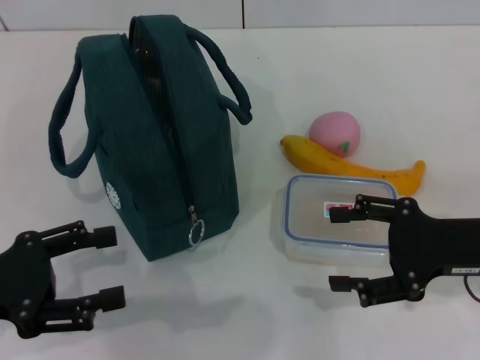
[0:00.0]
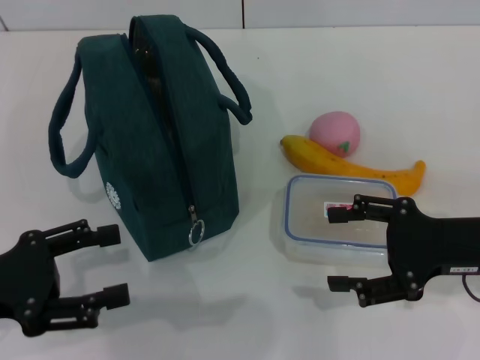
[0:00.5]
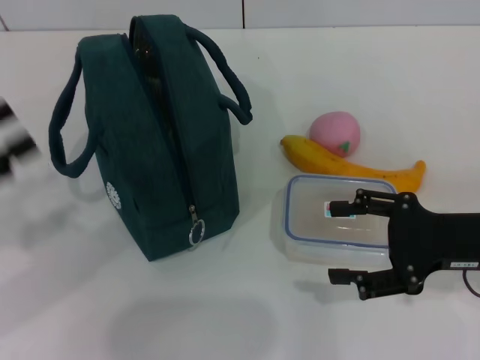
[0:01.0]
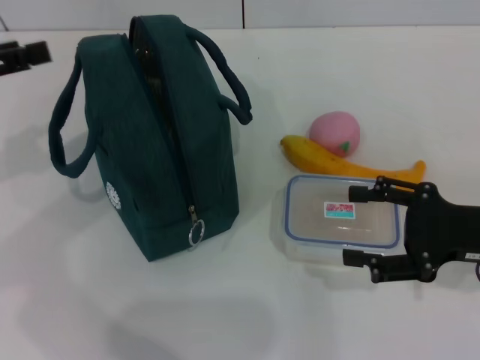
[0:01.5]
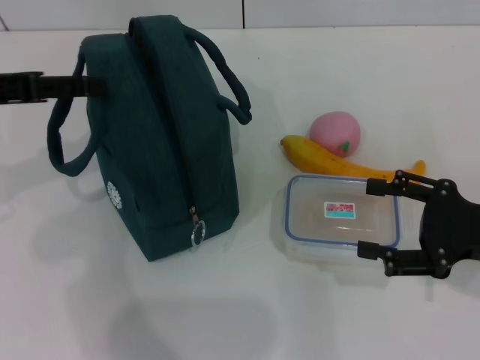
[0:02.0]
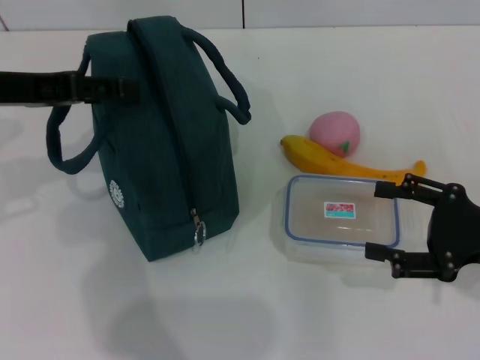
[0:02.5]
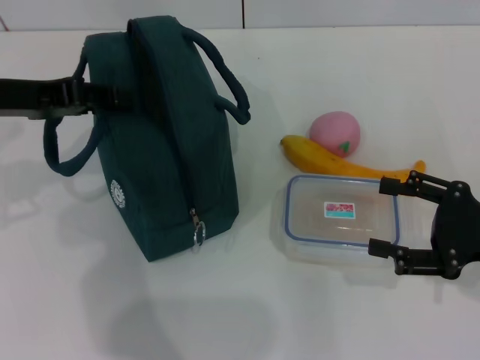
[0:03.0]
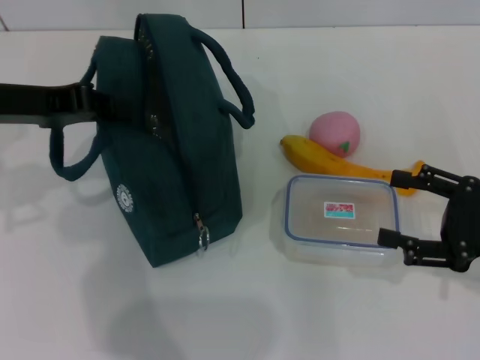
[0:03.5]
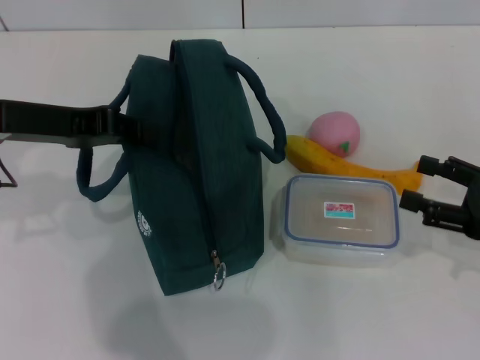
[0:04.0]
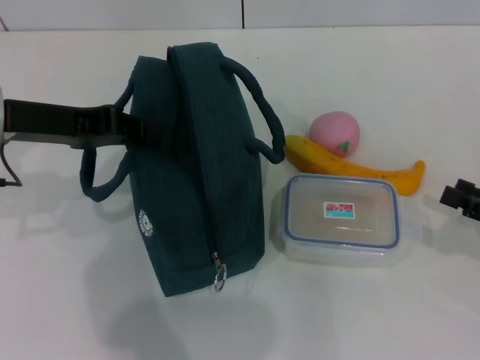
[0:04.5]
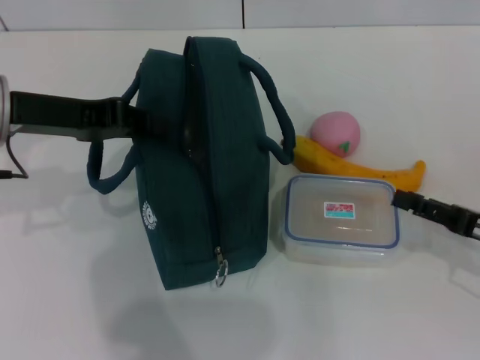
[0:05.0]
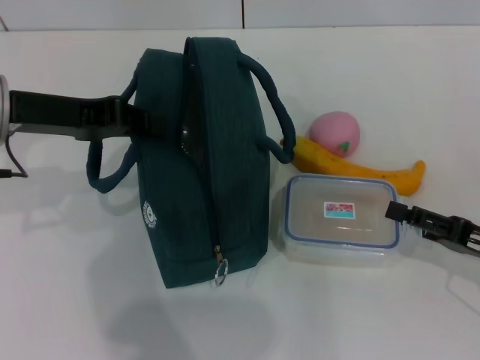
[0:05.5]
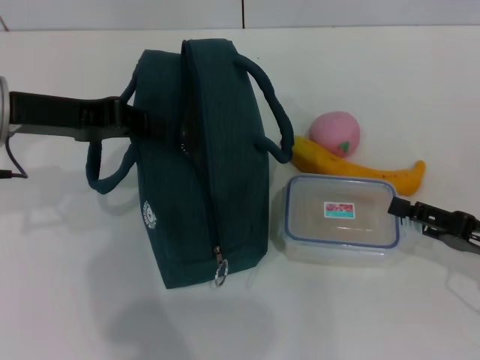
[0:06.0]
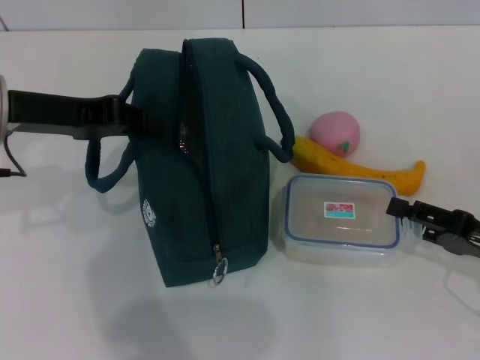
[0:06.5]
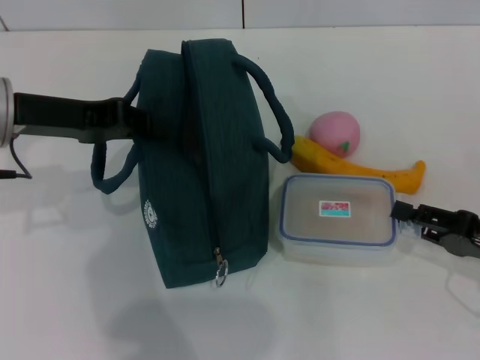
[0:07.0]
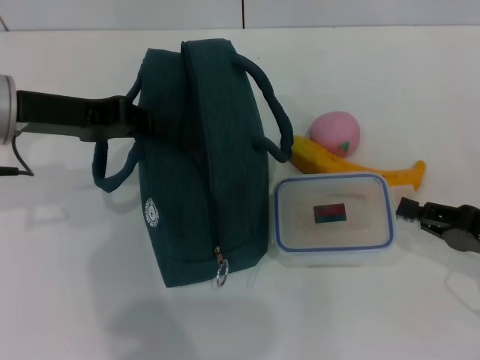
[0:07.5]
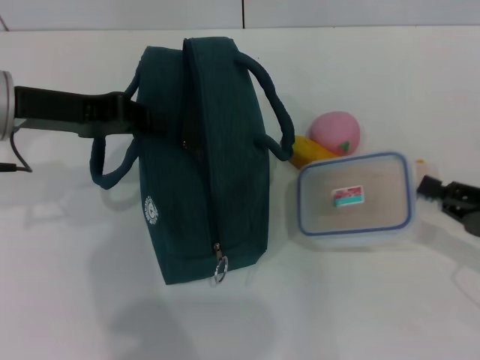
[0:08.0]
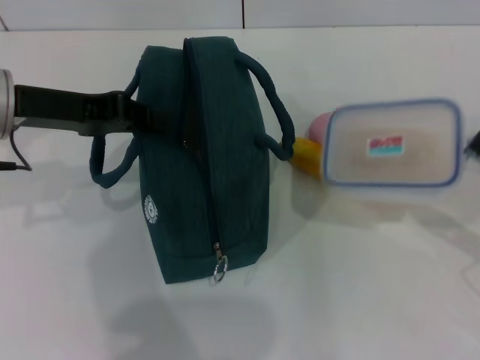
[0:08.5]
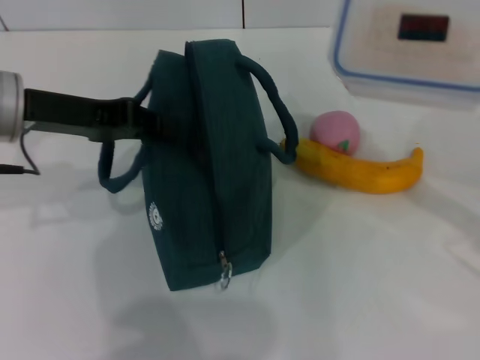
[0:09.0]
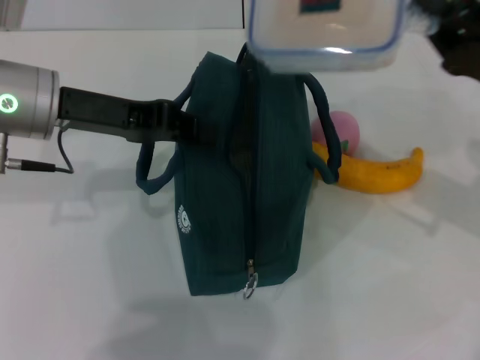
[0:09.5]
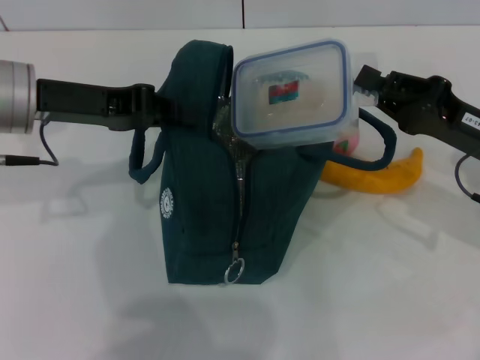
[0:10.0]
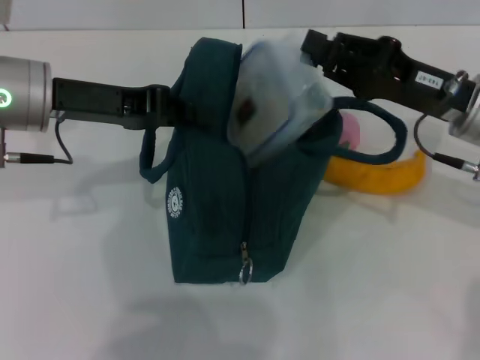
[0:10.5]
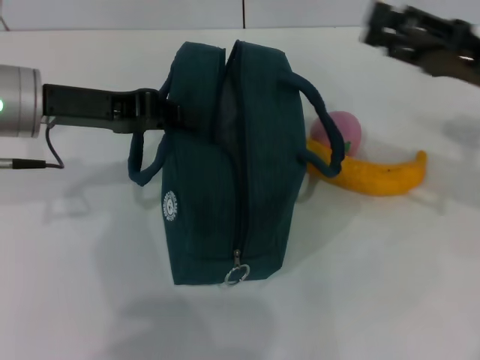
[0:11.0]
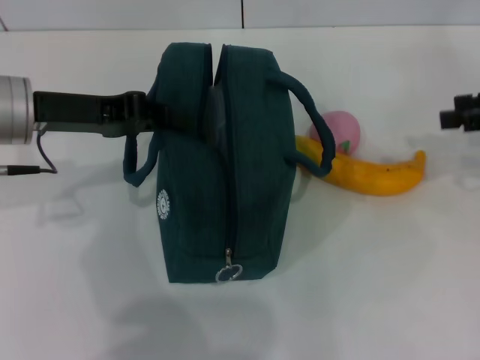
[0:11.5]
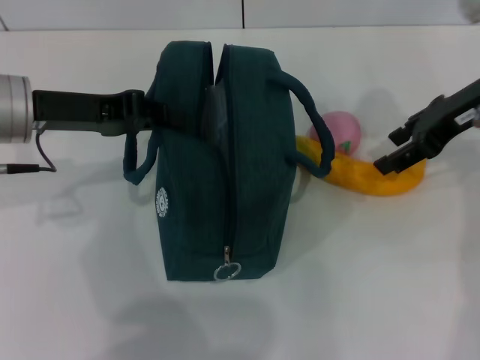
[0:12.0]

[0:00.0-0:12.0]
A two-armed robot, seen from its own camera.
Step, 0:00.0 to 0:04.0: Hold the lunch bag with your left hand.
Step, 0:04.5 to 0:07.5: Pick up the lunch box with your right hand.
Step, 0:08.0 to 0:10.5: Place the lunch box into the lunch bag with your right hand.
0:00.0 to 0:02.0: The left gripper shifts roughly 15 cm forward and upward.
0:02.0 to 0:04.0: The left gripper shifts by roughly 5 cm, and closes.
0:06.0 to 0:08.0: The right gripper closes its fingers.
0:08.0 to 0:10.0: The right gripper goes some 10 cm forward and to the left.
0:10.0 to 0:12.0: The right gripper goes left and right, some 15 cm each way, reversing 2 times, and opens up.

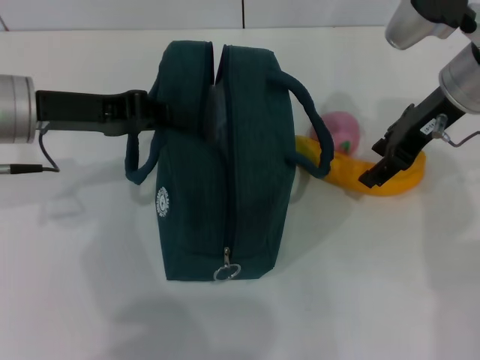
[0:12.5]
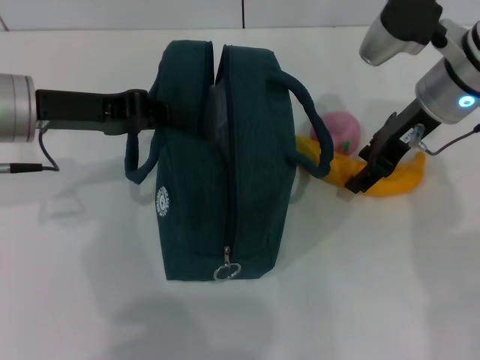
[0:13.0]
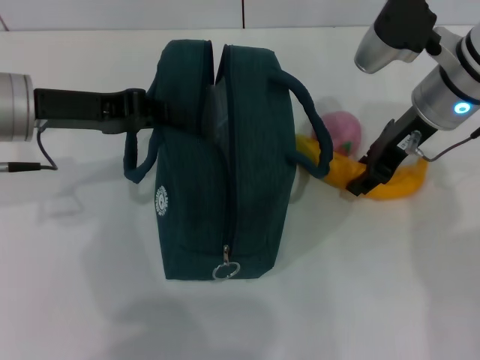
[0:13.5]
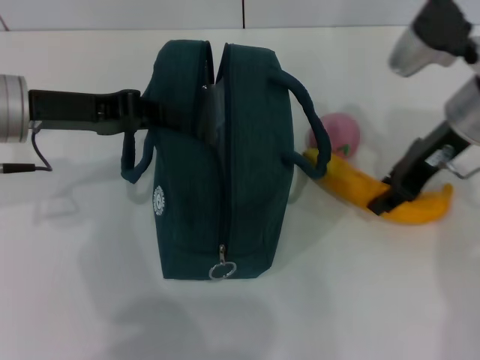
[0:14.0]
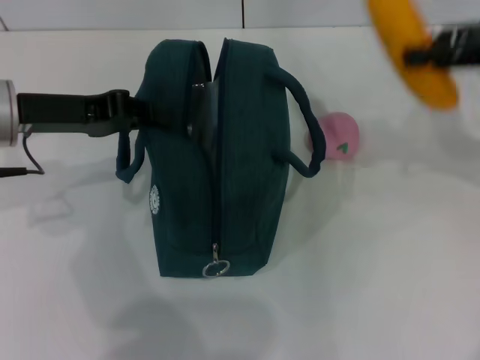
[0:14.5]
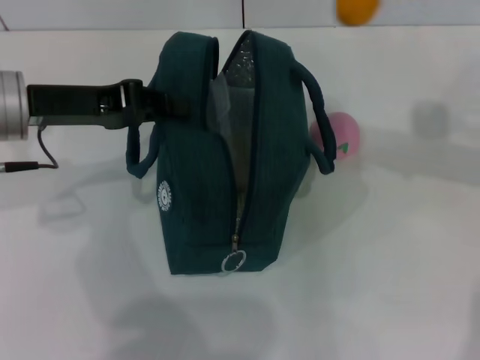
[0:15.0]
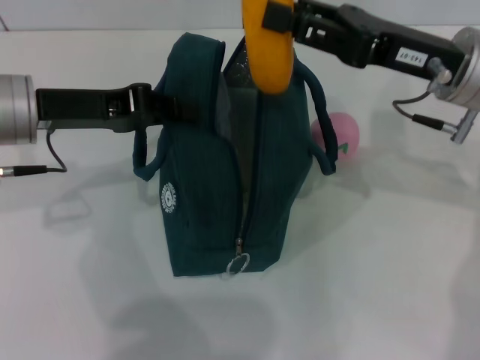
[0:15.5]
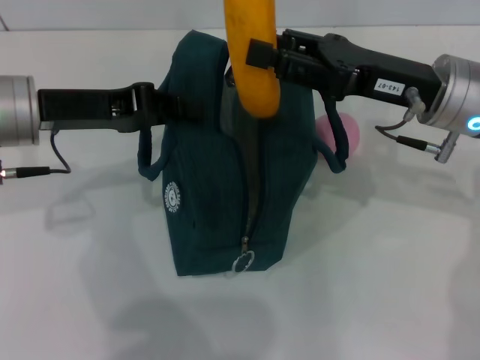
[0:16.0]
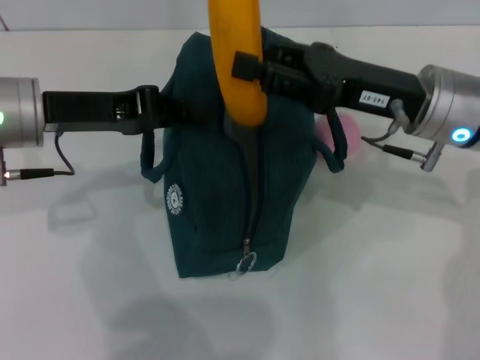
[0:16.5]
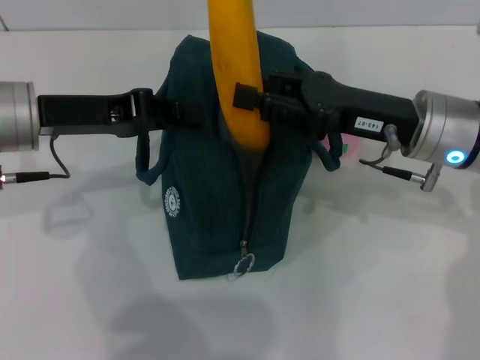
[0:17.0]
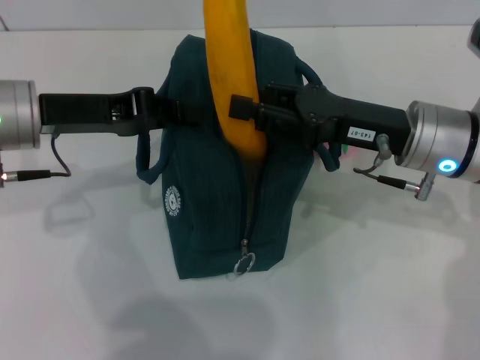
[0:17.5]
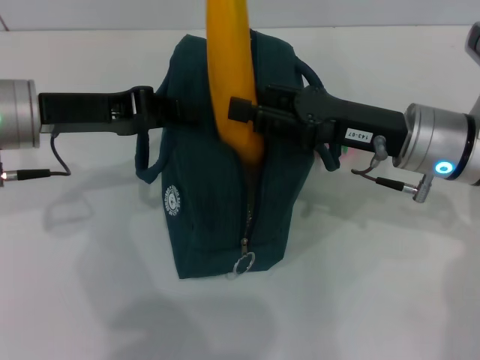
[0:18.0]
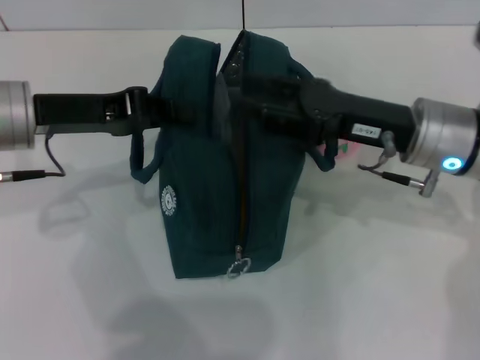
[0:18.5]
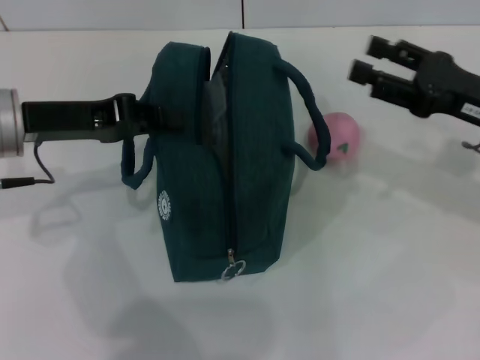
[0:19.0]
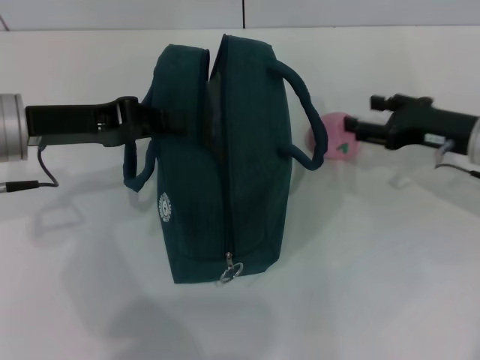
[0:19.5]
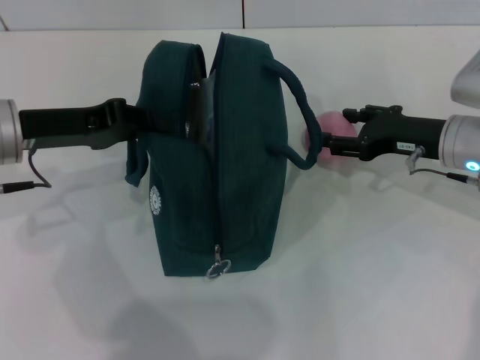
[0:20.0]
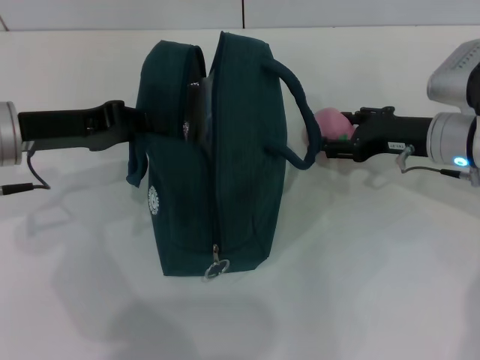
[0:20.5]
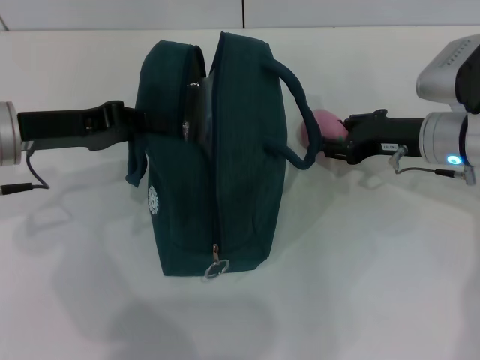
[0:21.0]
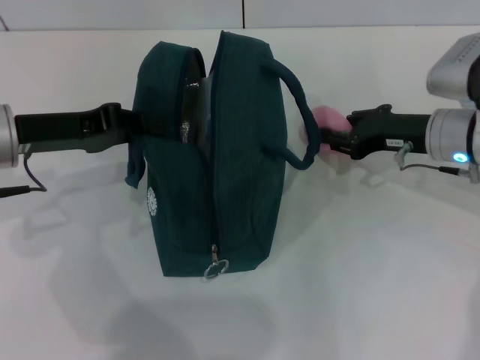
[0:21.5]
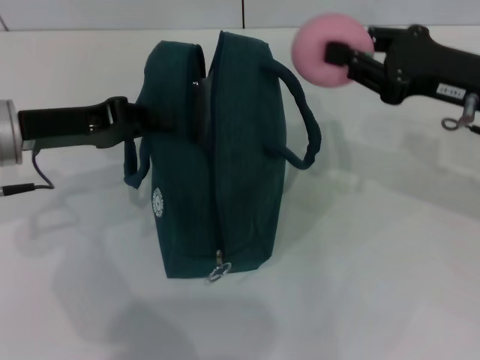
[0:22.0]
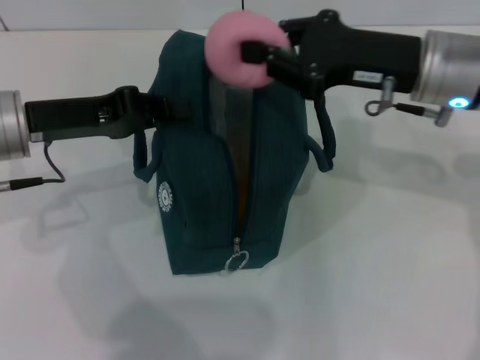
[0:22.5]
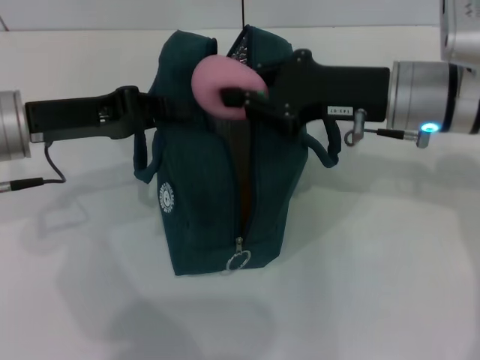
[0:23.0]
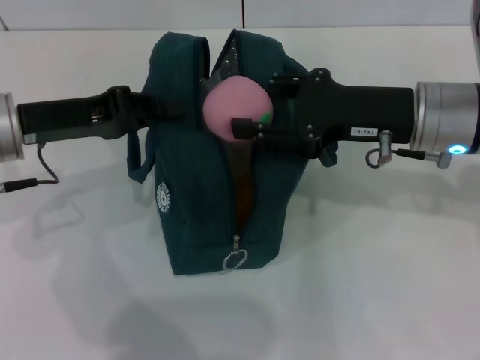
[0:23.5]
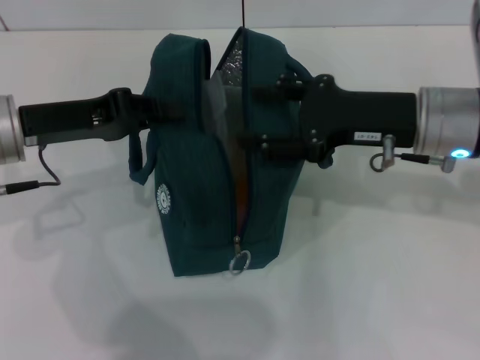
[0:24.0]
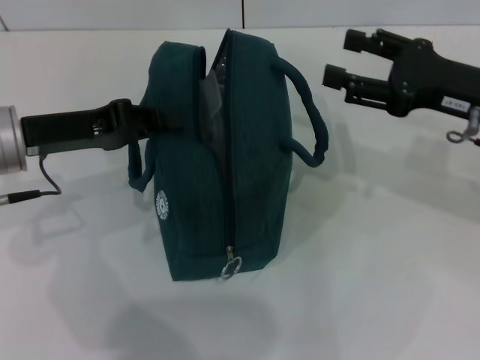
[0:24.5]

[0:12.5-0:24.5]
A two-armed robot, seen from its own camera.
Step, 0:14.0 to 0:18.5: Put the banana into the lunch bag with your right hand.
Step, 0:19.0 to 0:20.5: Grab the peach with your right hand.
0:12.5 to 0:14.5: The right gripper moves to the right, upward and backward, roughly 15 cm.
0:14.5 to 0:16.5: The right gripper travels to the left and downward by about 15 cm.
0:16.5 to 0:18.5: The grippers stay close to where they were, moving slightly.
0:18.5 to 0:20.5: The right gripper shifts about 5 cm to the right and forward.
0:20.5 to 0:22.5: The right gripper moves upward, some 10 cm, and closes up.
0:22.5 to 0:24.5: The right gripper goes roughly 10 cm to the right, and opens up.

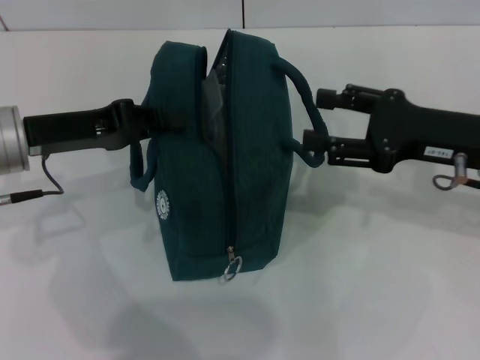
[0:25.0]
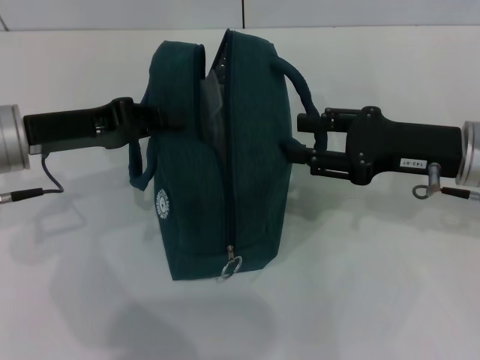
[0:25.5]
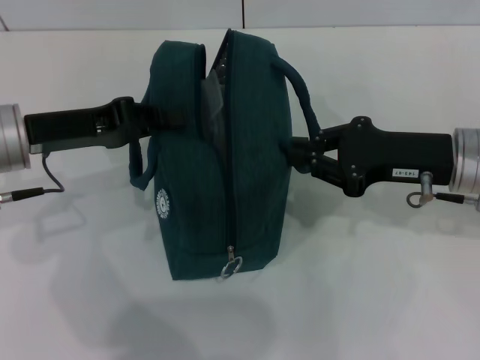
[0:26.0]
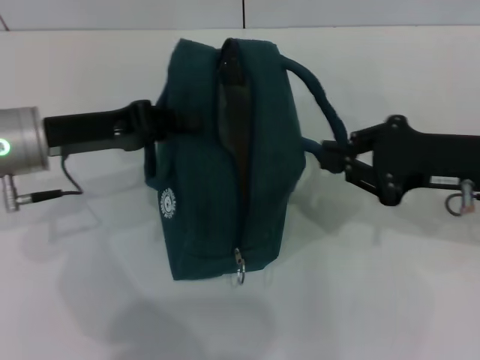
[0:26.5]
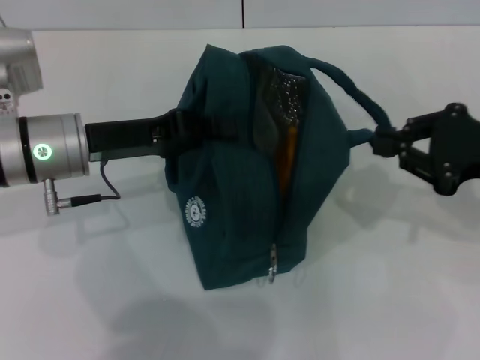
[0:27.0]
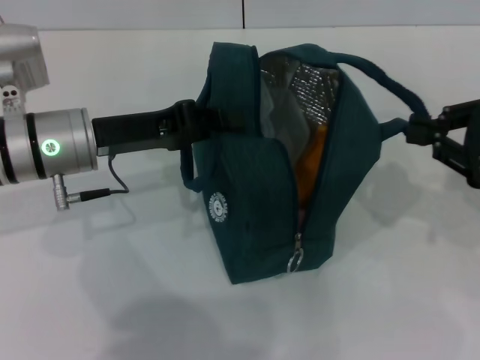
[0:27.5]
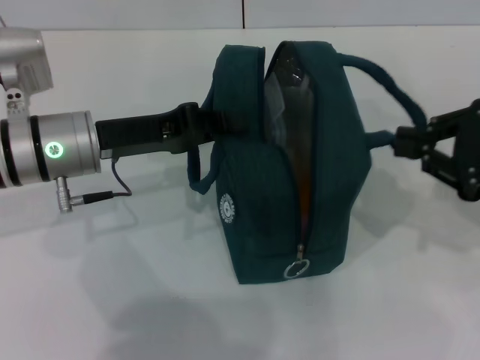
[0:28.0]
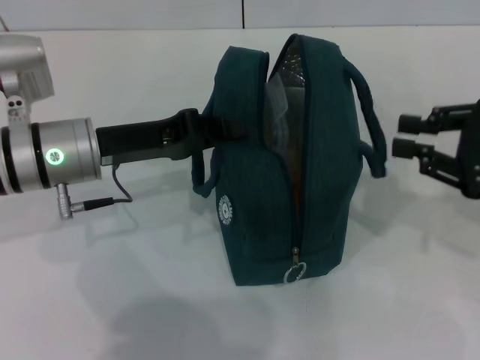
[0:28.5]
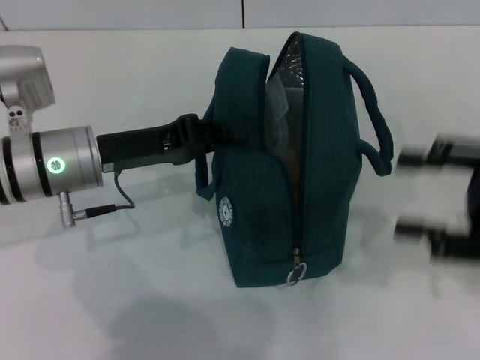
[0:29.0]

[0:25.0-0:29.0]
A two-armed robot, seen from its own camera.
Step, 0:25.0 to 0:28.0: Hold the lunch bag with your right hand.
0:25.0 to 0:27.0: The right gripper ends up some 5 cm from where it was, and closes up.
0:27.0 to 0:29.0: The right gripper shifts by about 5 cm, and opens its fingers.
